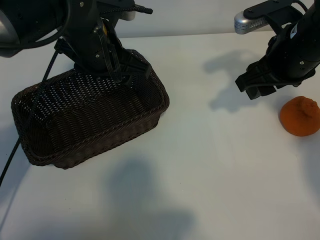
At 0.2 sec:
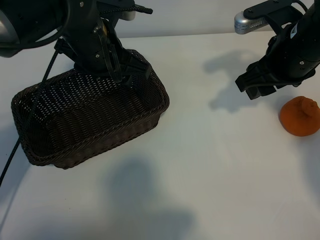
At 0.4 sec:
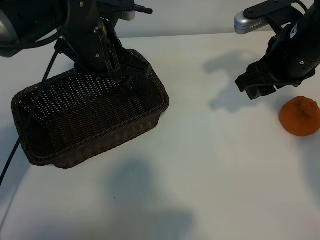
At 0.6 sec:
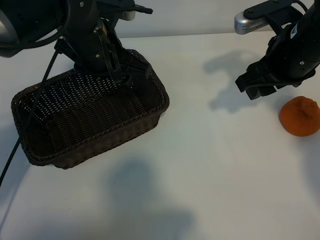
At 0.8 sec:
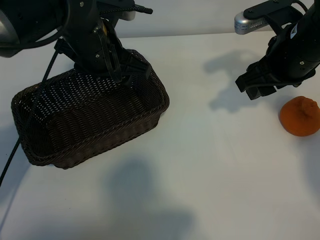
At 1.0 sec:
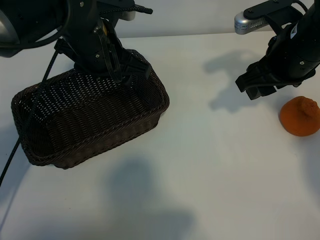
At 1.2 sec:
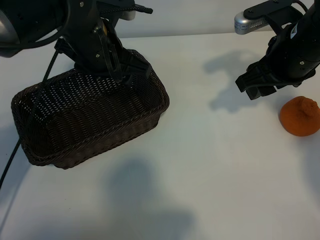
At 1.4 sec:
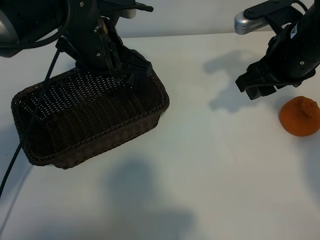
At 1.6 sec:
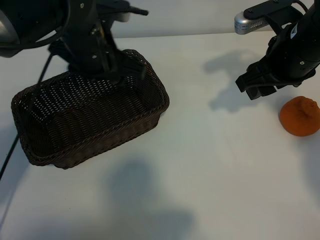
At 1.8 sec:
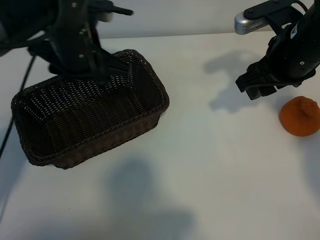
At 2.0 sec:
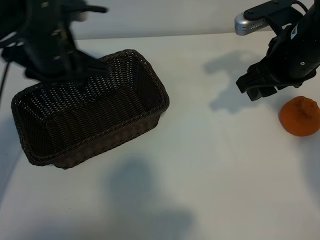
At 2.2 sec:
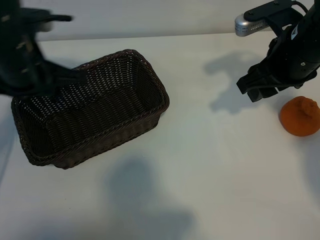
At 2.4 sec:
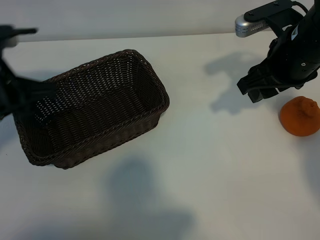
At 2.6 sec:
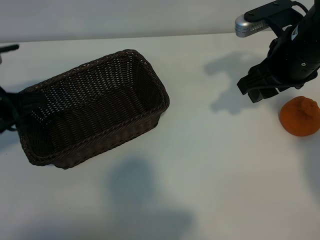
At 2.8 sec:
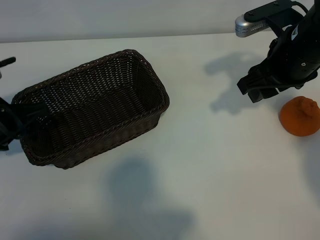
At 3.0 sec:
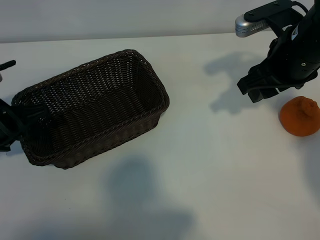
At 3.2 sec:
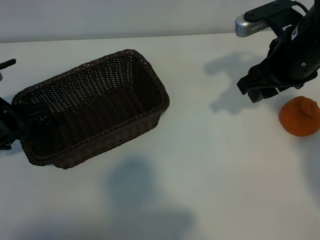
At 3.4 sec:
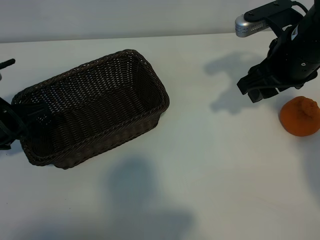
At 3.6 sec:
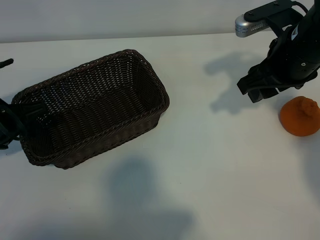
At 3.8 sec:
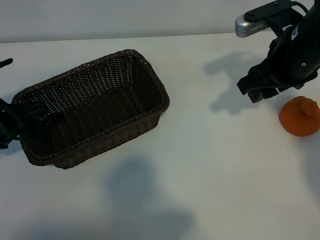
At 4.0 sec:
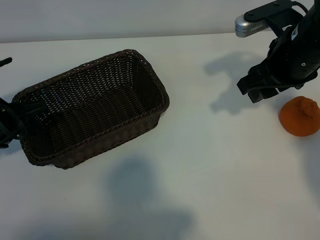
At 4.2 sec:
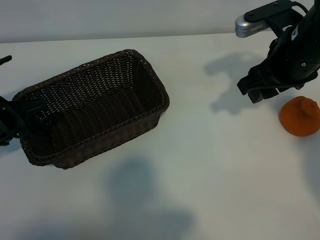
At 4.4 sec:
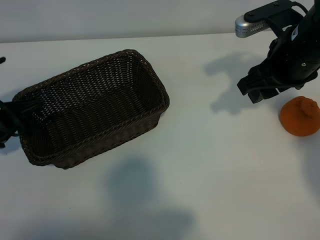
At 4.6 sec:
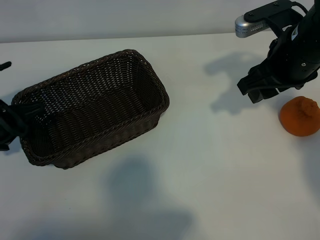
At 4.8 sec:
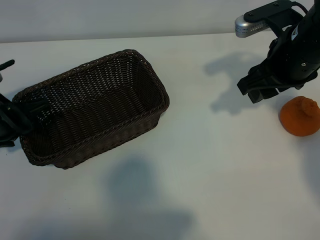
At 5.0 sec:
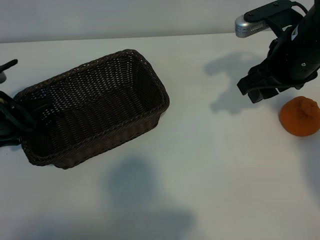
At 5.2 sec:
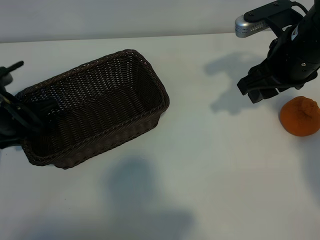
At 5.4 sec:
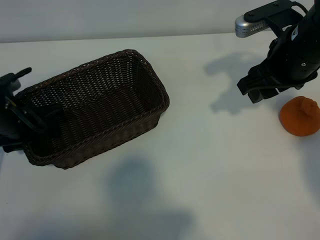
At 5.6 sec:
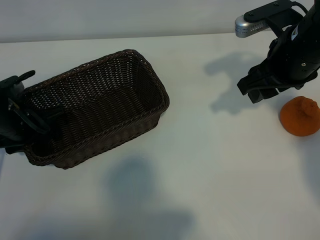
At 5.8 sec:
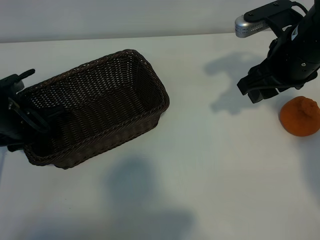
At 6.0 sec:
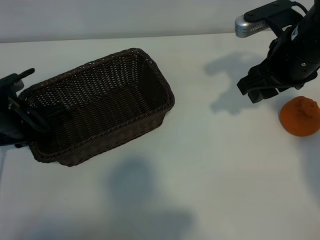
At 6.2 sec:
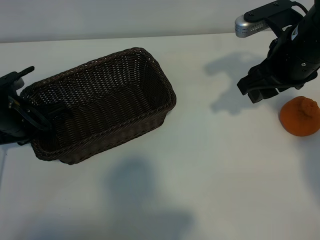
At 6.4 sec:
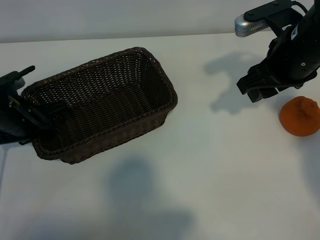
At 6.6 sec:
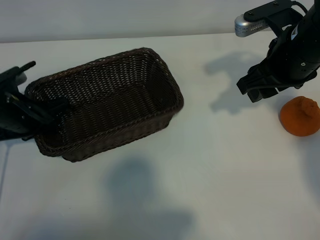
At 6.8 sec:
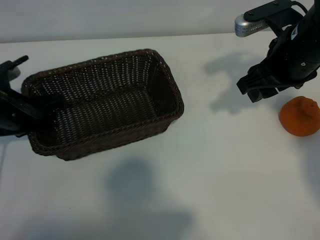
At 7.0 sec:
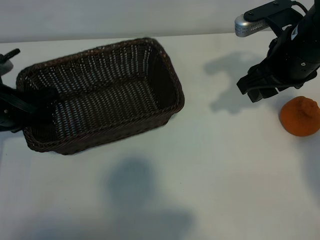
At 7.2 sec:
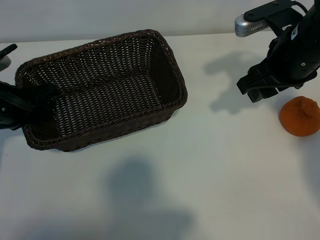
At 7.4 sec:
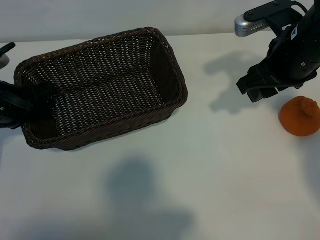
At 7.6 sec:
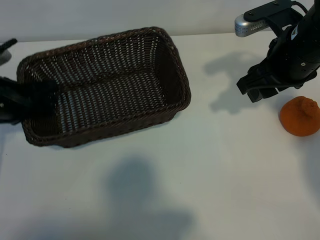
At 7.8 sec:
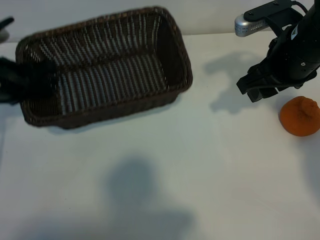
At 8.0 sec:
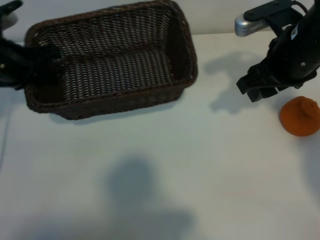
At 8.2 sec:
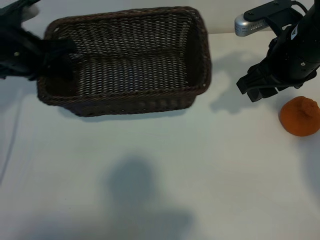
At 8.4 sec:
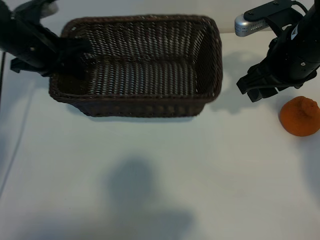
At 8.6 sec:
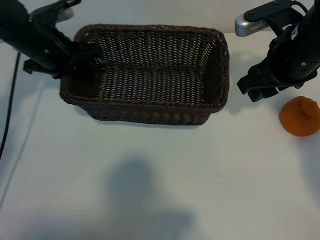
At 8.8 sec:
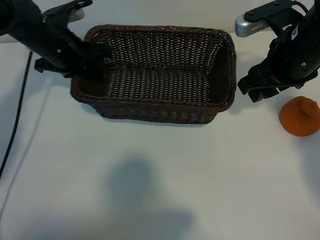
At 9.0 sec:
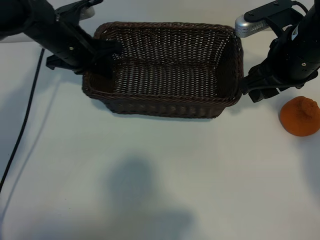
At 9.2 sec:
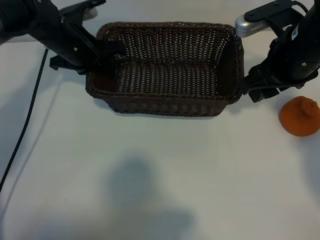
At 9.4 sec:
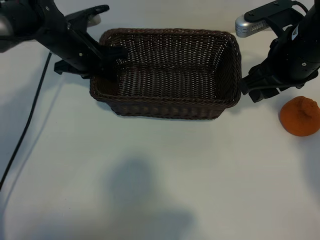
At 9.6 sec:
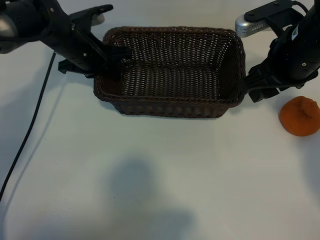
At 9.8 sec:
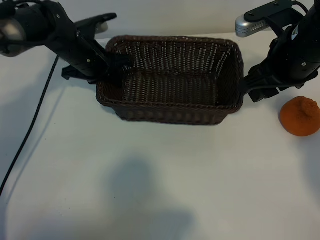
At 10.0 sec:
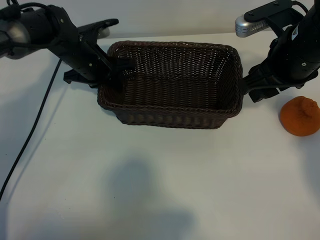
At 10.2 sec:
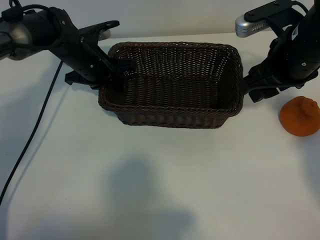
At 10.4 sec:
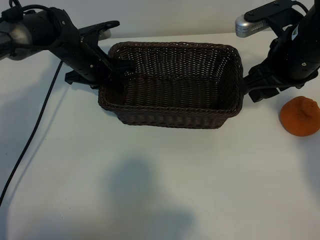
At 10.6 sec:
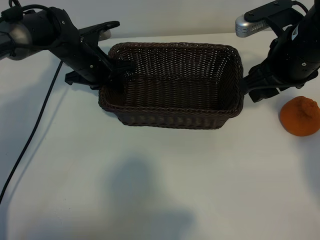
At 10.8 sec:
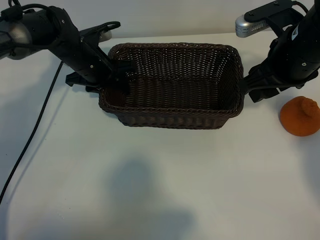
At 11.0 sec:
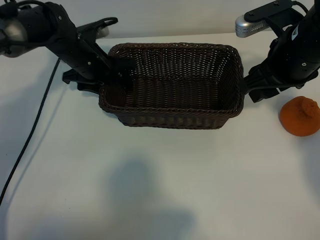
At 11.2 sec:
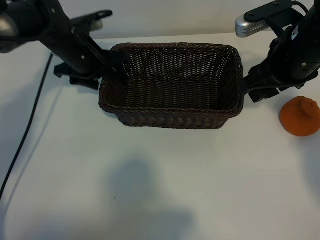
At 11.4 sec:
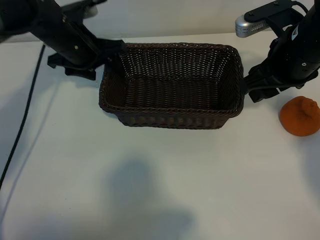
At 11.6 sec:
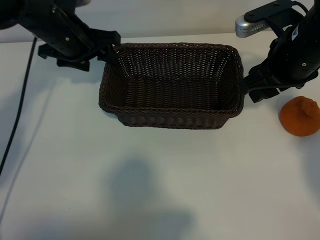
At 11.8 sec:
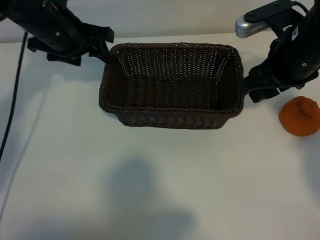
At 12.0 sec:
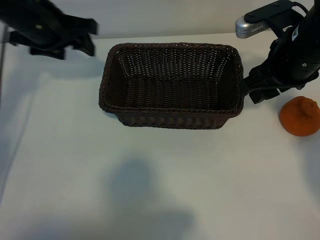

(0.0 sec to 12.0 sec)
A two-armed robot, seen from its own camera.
Task of the whole recording: pick up the orange and put it into the basket.
Step, 1.2 sec - 6.0 sec: Grasp the basket with left gripper.
Step, 6.2 sec - 10.6 sec: Place the basket in the center of view with left gripper.

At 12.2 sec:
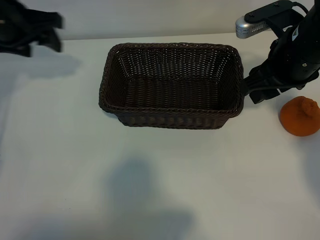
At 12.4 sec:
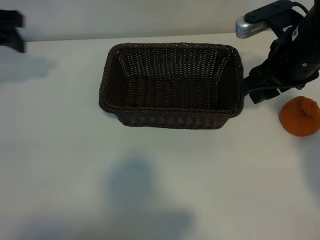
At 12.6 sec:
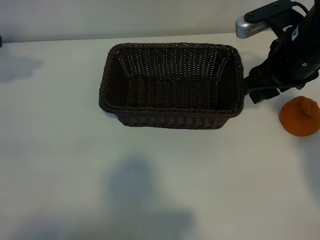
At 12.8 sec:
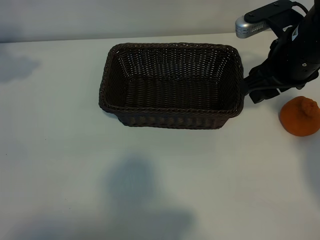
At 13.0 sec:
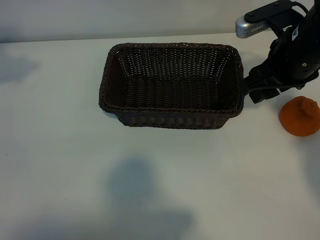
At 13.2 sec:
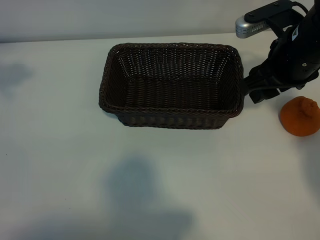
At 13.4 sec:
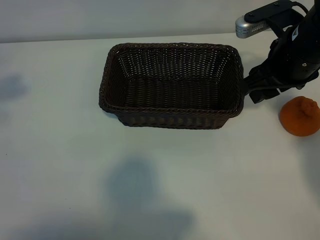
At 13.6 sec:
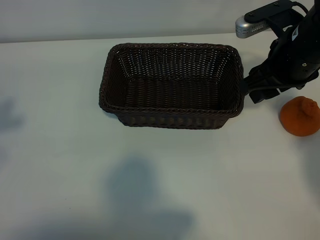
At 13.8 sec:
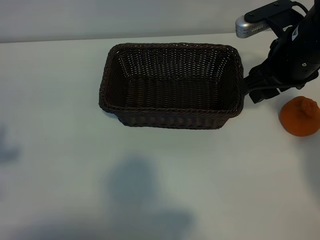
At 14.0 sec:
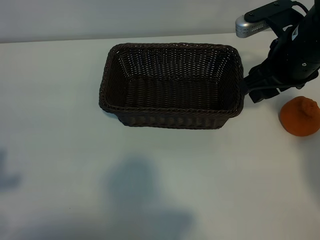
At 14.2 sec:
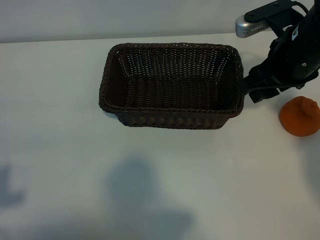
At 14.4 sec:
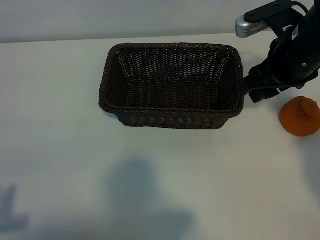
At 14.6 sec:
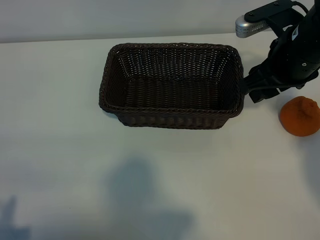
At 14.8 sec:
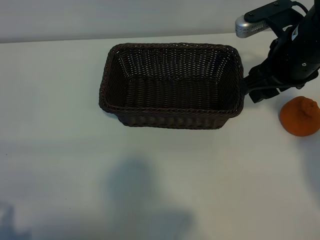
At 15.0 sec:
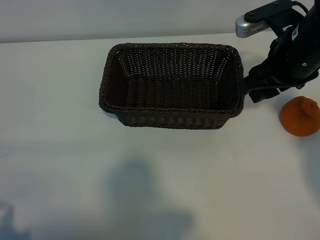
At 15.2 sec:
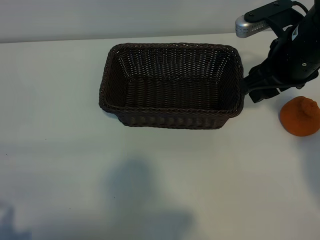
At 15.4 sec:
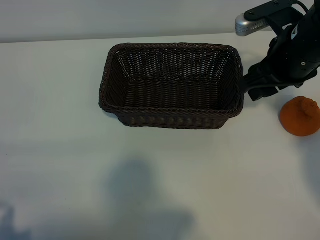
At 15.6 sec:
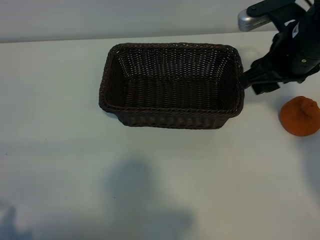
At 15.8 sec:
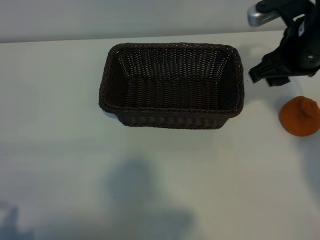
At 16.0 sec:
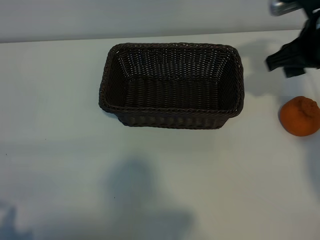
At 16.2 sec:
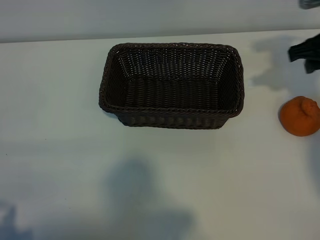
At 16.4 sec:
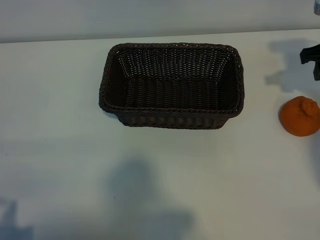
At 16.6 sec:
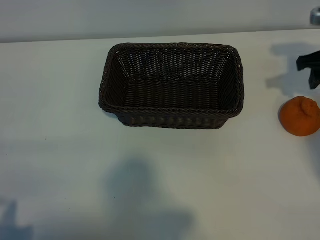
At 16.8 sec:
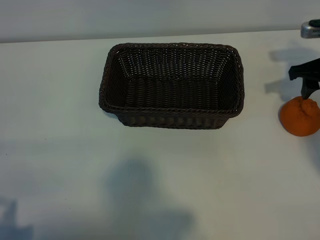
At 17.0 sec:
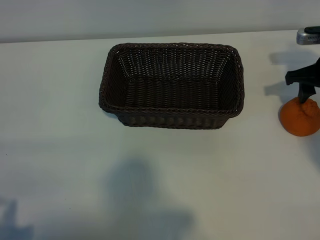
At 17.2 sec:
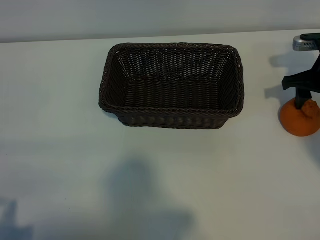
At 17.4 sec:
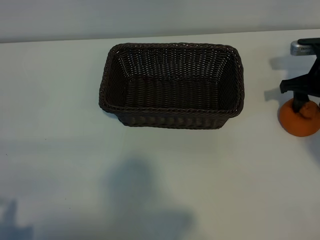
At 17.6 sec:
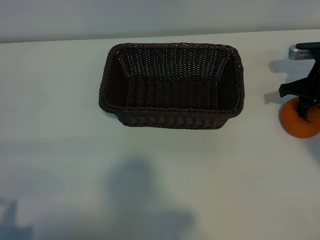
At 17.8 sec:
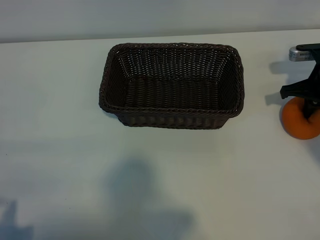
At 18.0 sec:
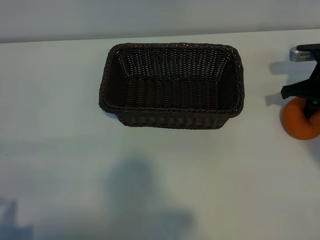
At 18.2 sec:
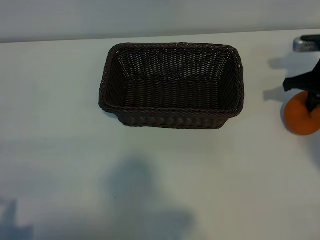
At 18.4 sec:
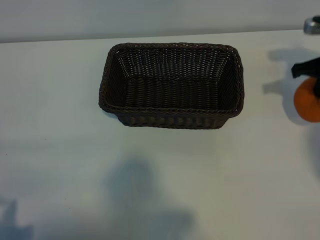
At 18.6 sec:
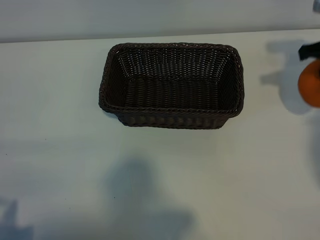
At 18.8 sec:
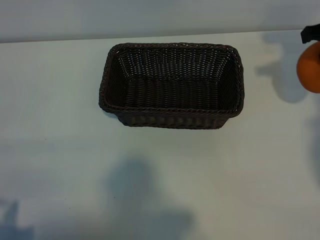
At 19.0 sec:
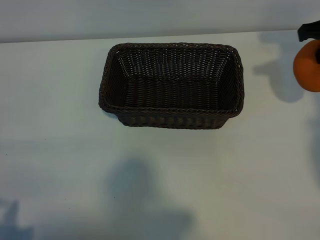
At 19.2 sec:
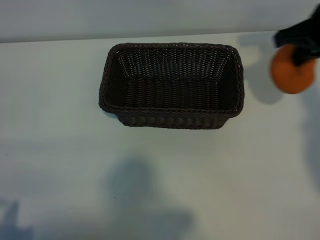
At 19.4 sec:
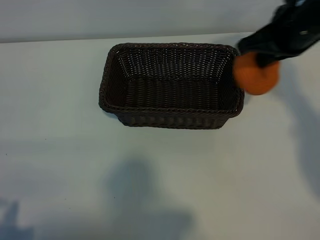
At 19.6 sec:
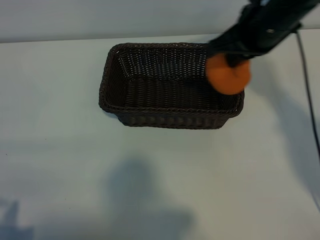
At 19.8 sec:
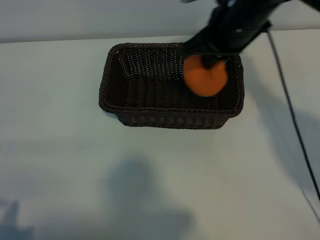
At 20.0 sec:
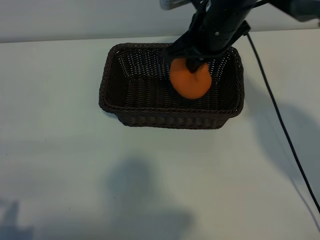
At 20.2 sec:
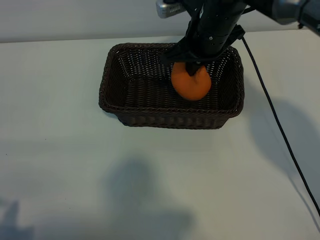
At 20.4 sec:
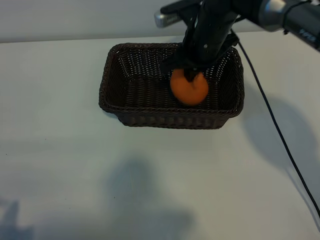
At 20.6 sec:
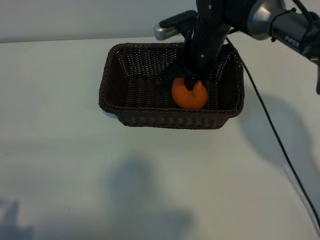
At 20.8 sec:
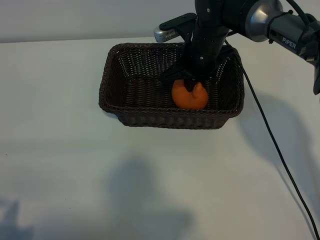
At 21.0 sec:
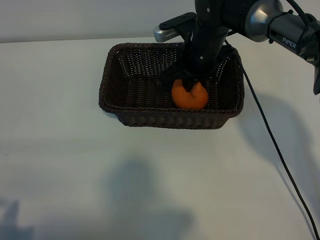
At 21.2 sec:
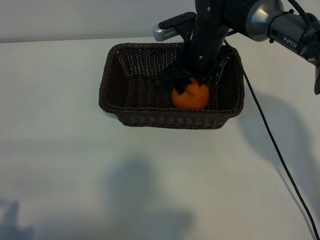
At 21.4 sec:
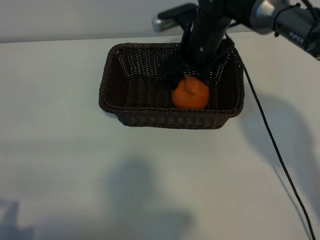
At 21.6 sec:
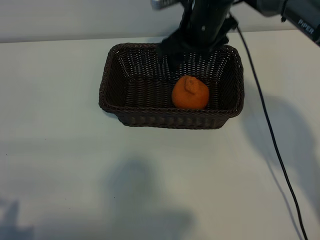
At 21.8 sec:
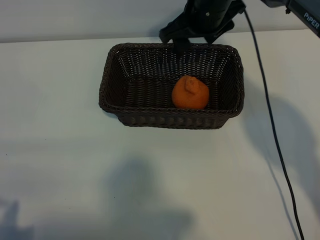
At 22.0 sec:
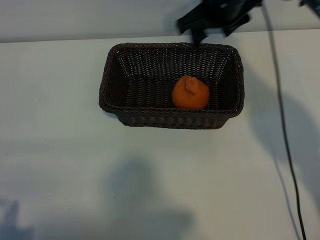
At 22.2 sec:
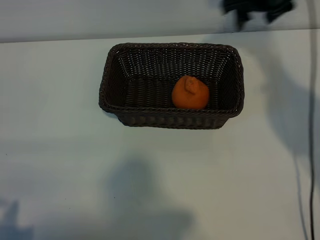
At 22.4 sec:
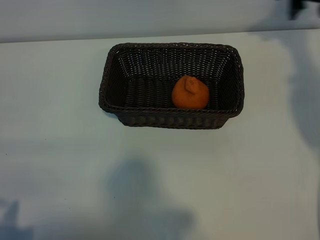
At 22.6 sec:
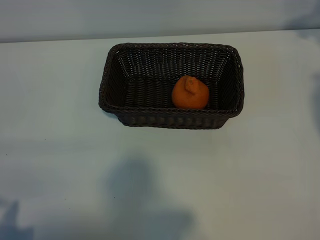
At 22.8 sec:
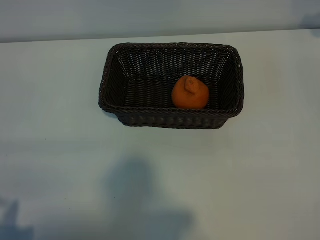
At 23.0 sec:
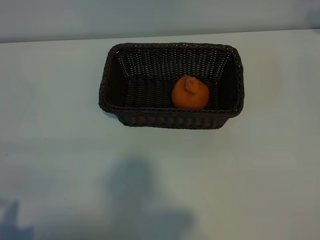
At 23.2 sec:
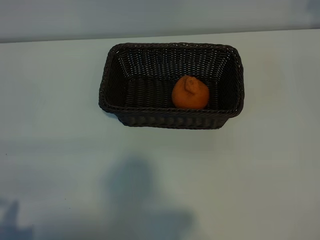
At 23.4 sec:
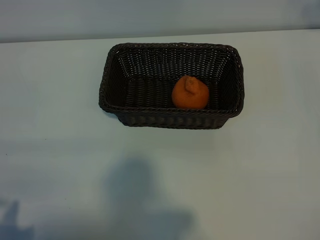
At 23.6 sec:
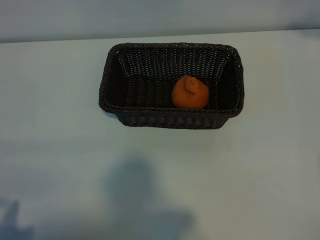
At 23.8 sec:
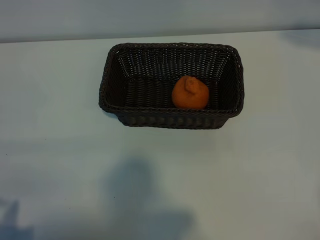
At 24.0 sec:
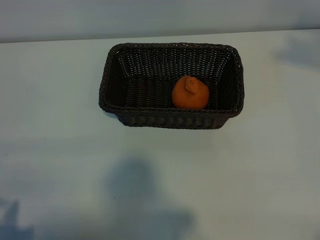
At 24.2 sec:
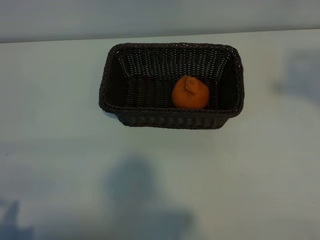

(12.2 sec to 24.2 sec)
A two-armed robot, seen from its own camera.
Task of the whole recording: pick up the orange and put it into the basket.
Step, 12.2 sec - 17.8 sec: Grasp the orange with right gripper.
Step, 18.0 sec - 21.0 sec: Place the orange in the basket with right gripper.
